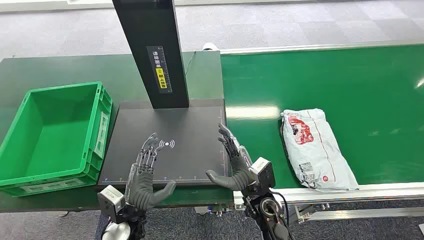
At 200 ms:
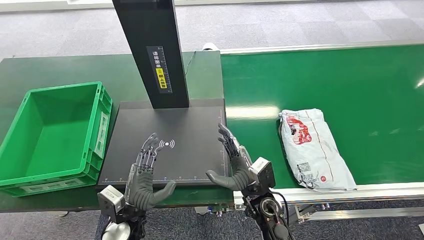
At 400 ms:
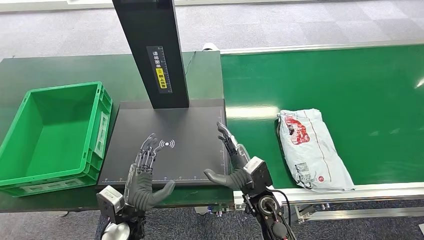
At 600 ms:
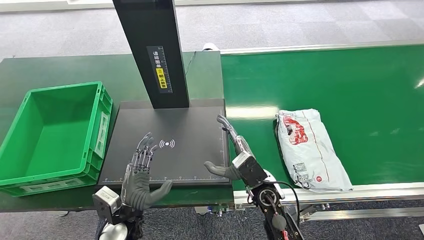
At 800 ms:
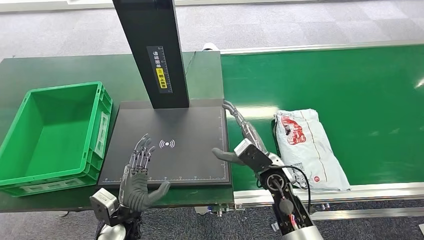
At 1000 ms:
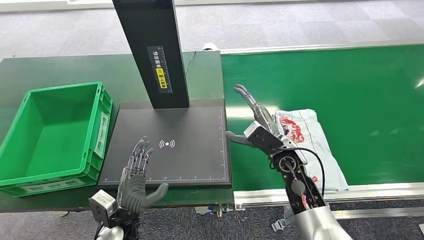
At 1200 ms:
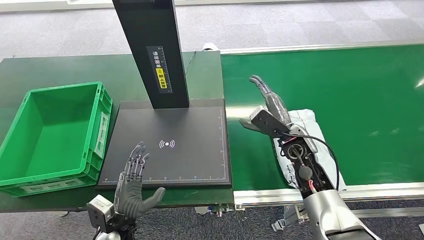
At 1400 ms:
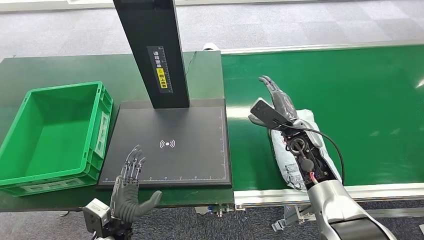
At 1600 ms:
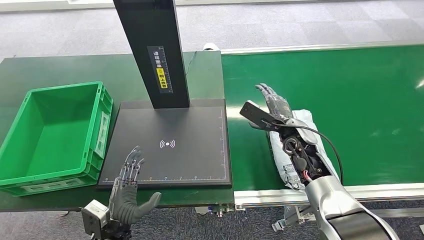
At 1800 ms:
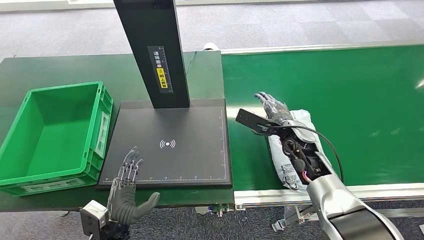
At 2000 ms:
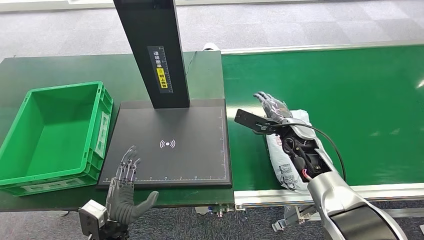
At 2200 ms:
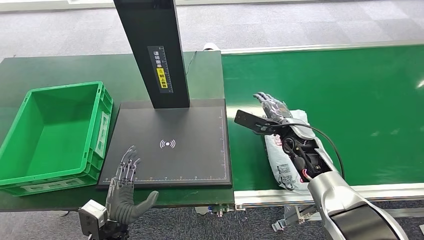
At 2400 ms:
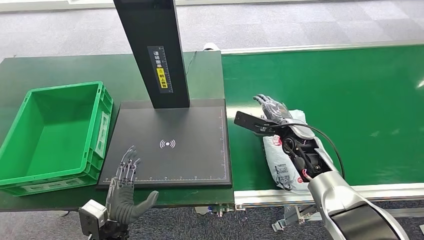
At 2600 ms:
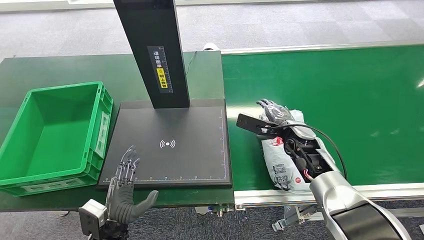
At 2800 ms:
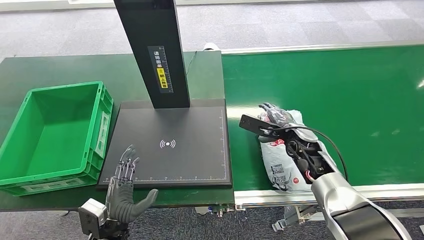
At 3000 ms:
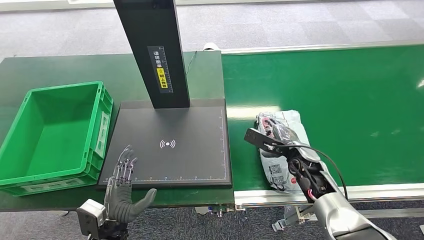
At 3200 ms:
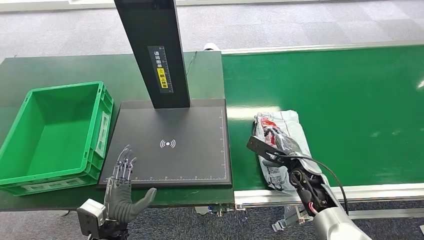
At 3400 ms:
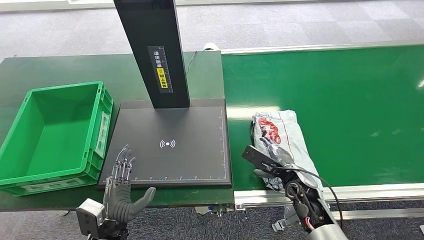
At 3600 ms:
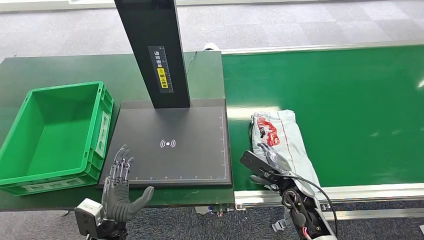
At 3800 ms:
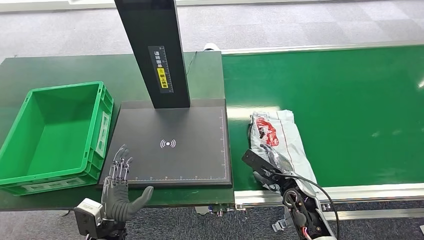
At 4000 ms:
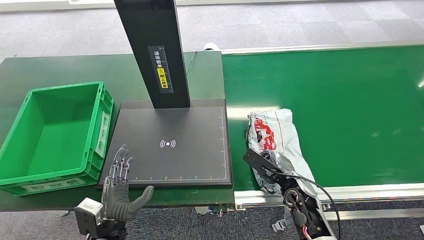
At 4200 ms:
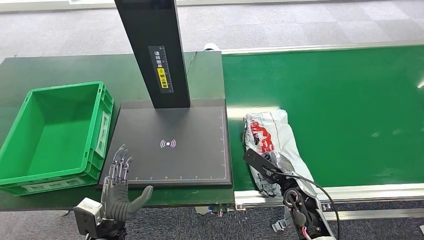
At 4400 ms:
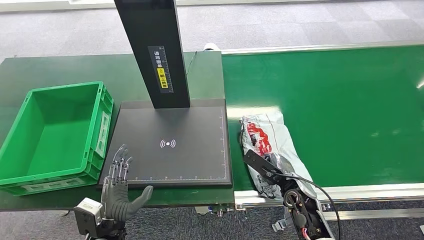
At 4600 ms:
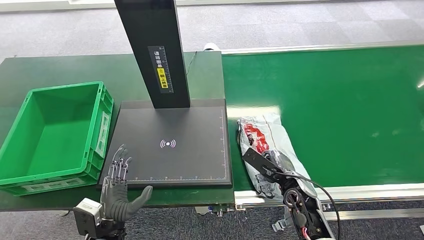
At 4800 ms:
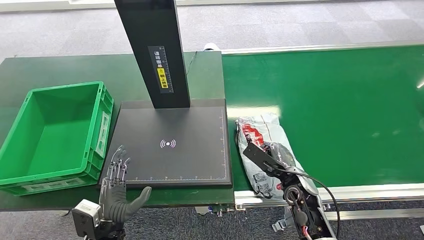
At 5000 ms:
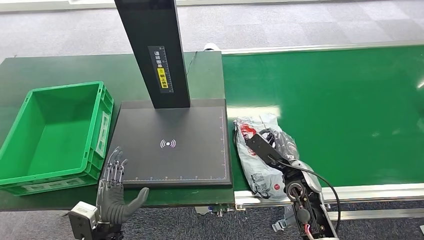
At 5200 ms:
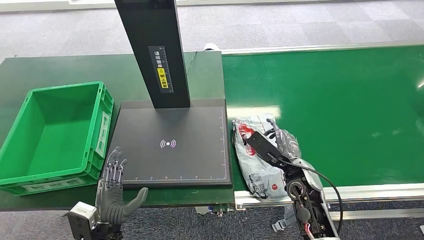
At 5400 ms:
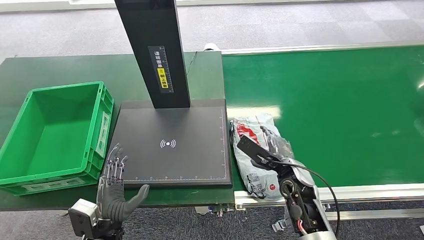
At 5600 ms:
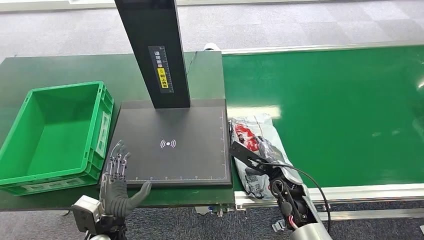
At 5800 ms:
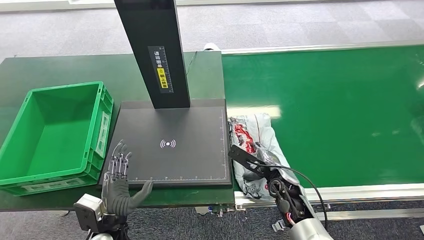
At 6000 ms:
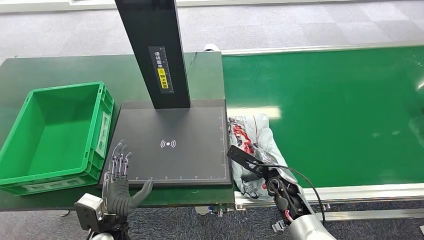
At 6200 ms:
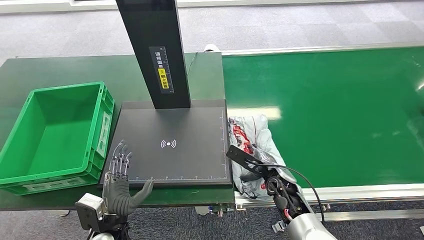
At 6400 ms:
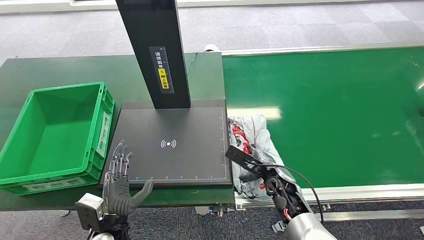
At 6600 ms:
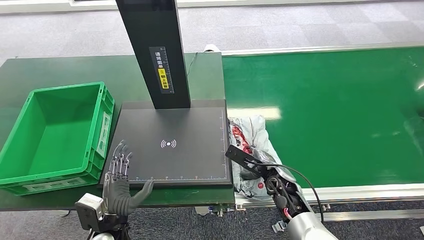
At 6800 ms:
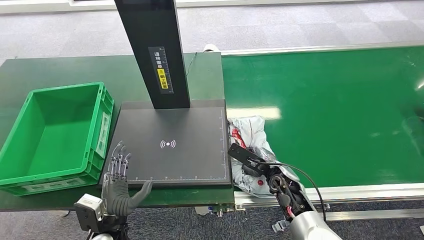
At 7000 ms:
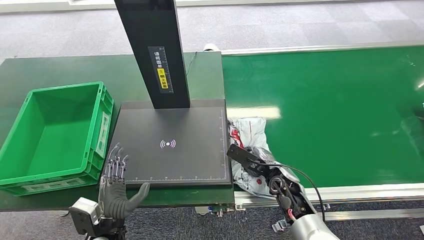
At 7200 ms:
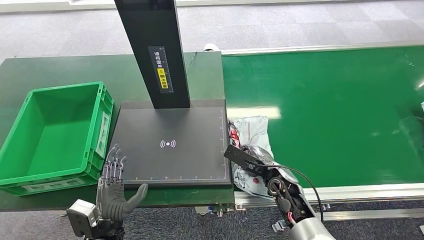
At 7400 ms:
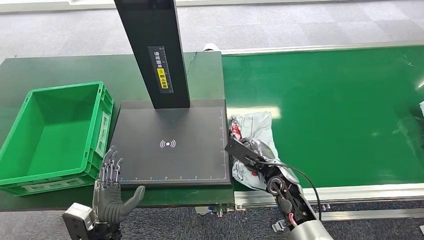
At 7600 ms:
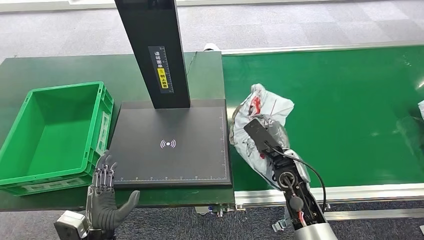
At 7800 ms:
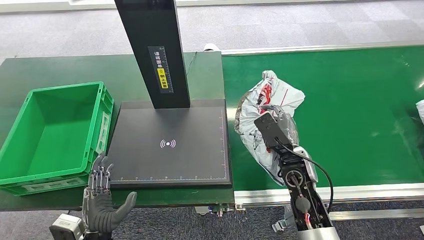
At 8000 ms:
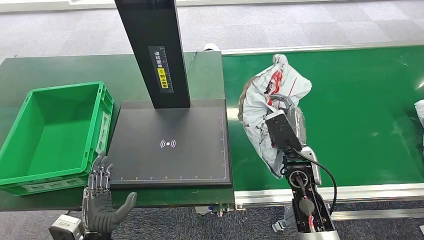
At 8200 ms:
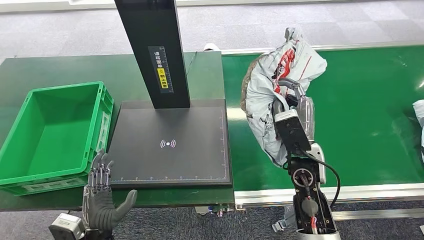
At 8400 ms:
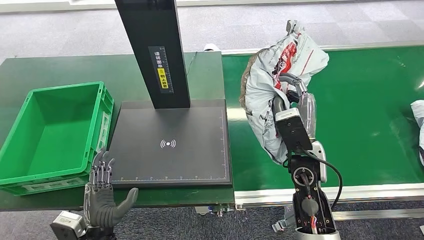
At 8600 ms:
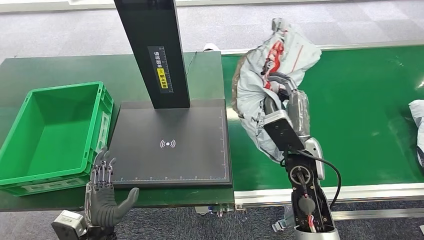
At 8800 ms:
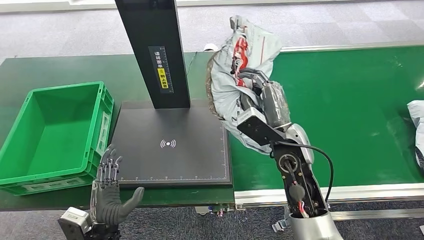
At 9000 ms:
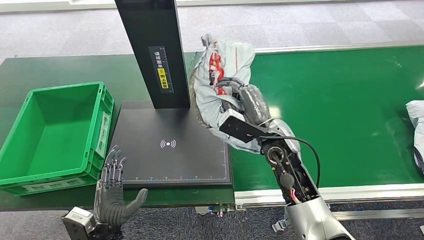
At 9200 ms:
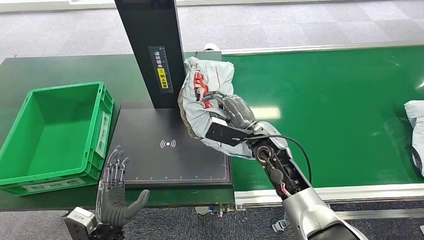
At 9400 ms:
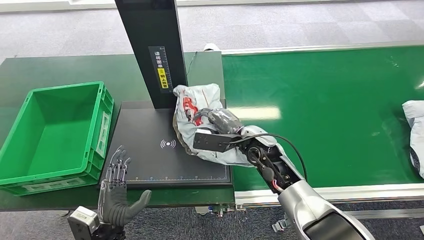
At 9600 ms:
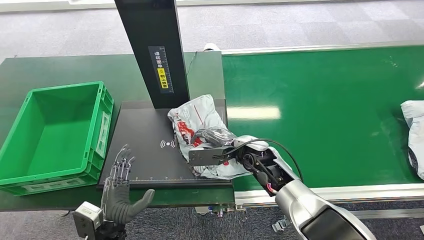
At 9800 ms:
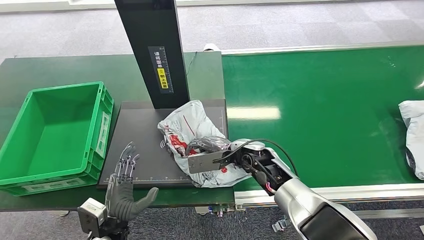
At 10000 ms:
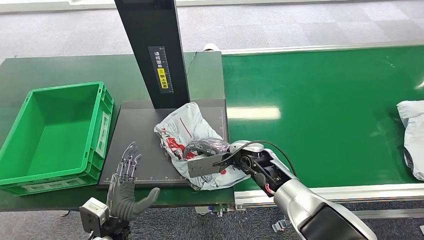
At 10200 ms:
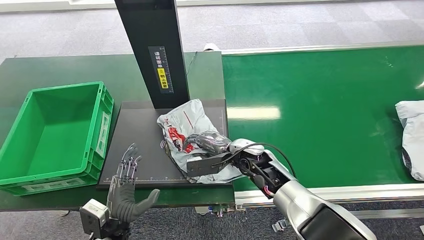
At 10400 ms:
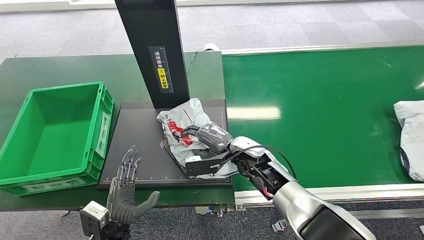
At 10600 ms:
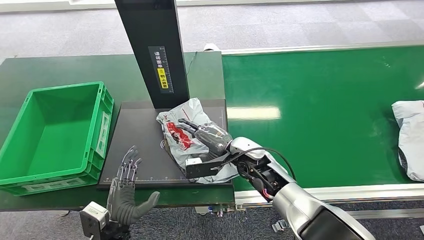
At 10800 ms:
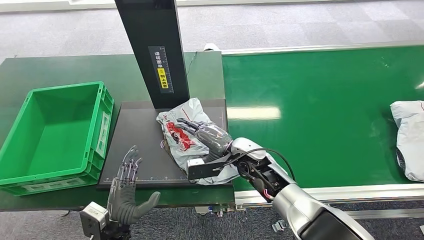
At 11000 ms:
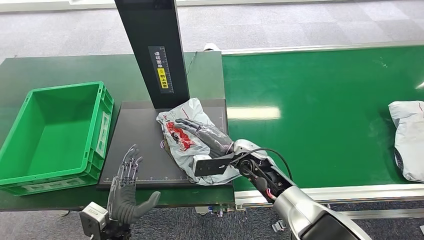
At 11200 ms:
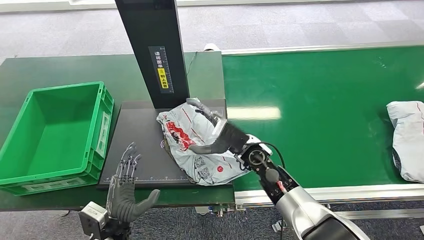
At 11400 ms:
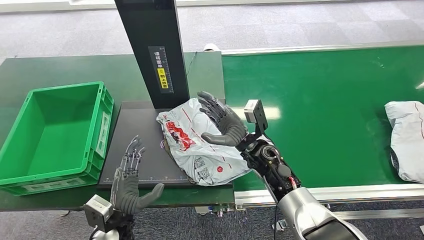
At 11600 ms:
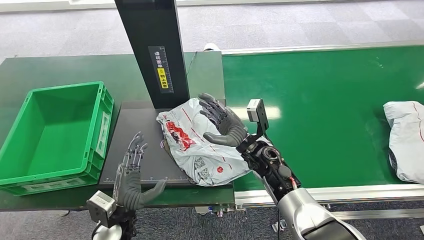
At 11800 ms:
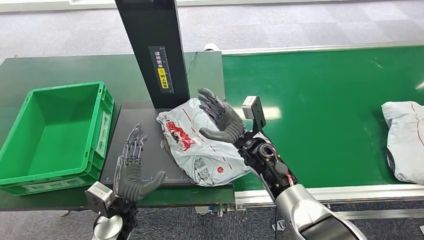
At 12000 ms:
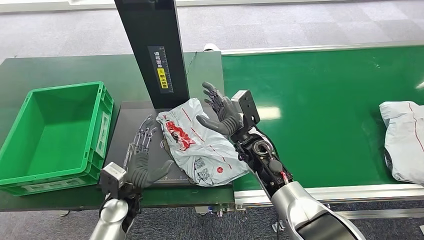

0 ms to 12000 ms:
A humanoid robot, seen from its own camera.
Step, 0 ms to 8200 ms: Pick up the package from the conveyor belt.
Step, 8600 ms to 11800 ms: Place the package onto the inbound machine.
1600 ms to 3000 ms: The right hand is displaced downward by approximately 5 cm.
3000 ms to 4400 ms: The right hand is displaced backward by approximately 10 cm.
4400 ms to 6000 ms: There are only small adjustments of the hands.
6000 ms to 7600 ms: The right hand moves upward, roughly 5 cm.
7600 ms to 9000 ms: The right hand moves upward, some 10 cm.
9000 ms to 10400 ms: The right hand travels downward by some 10 cm.
10400 ms to 12000 ms: The left hand moves forward, about 10 cm.

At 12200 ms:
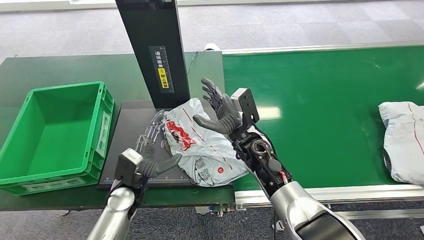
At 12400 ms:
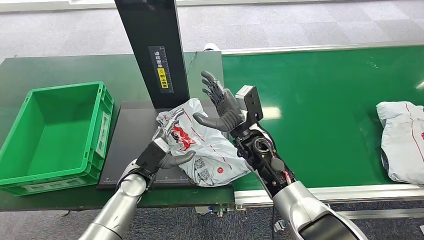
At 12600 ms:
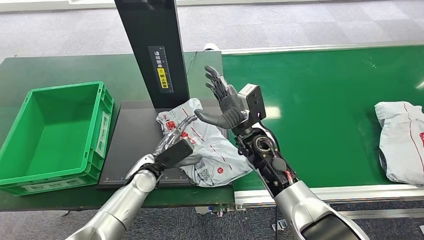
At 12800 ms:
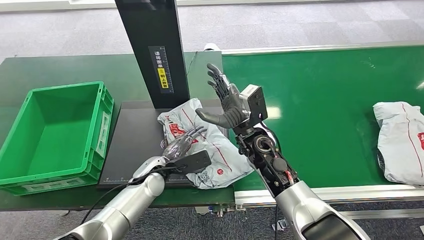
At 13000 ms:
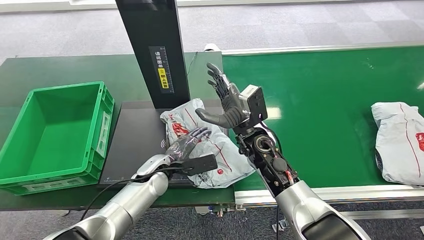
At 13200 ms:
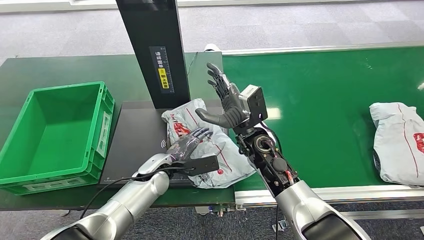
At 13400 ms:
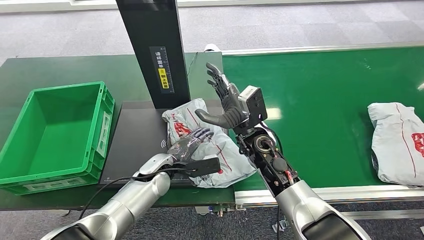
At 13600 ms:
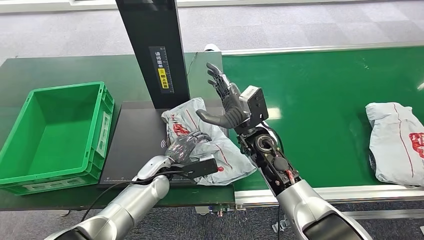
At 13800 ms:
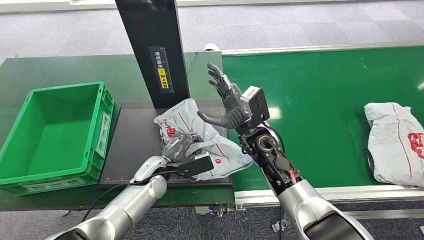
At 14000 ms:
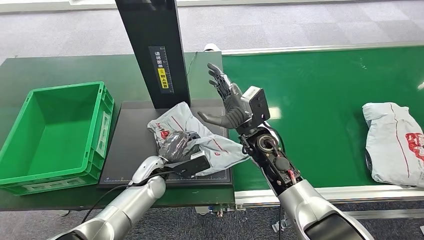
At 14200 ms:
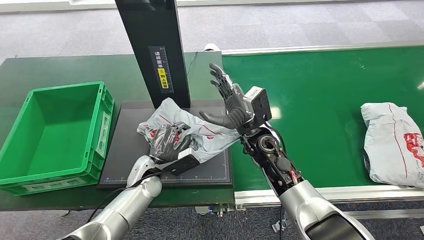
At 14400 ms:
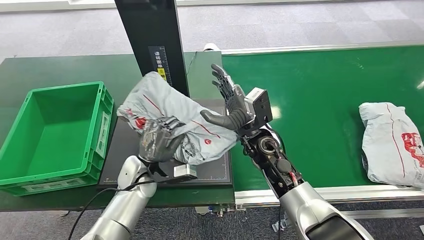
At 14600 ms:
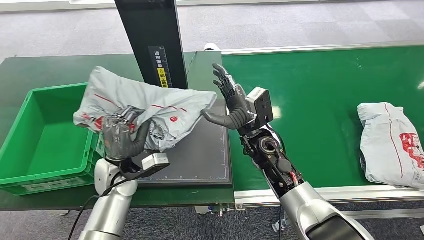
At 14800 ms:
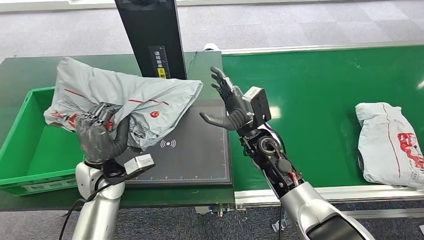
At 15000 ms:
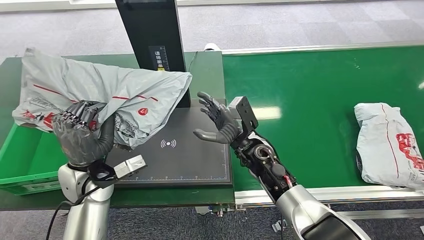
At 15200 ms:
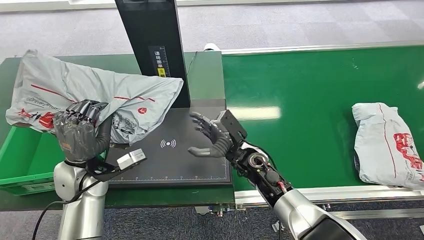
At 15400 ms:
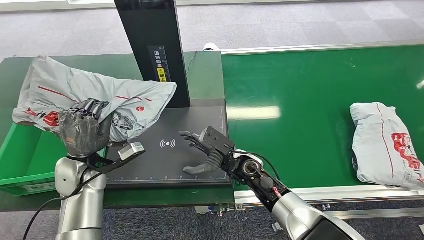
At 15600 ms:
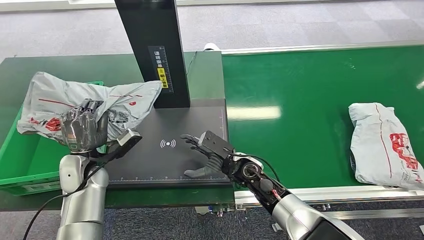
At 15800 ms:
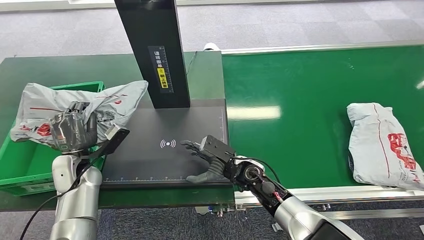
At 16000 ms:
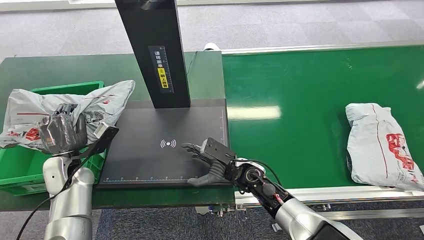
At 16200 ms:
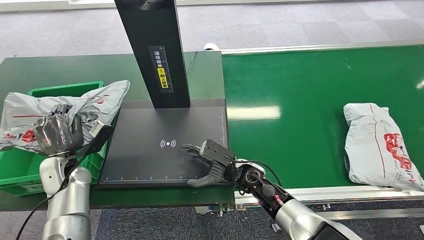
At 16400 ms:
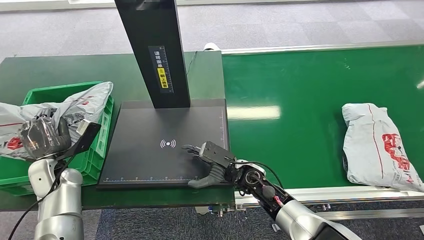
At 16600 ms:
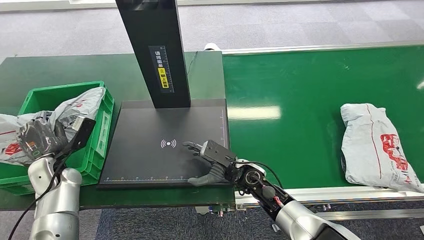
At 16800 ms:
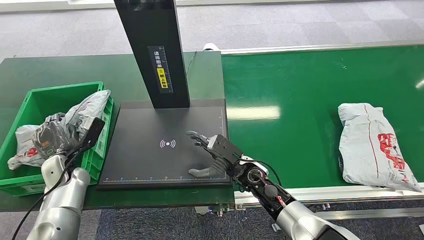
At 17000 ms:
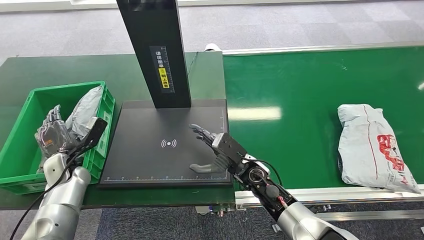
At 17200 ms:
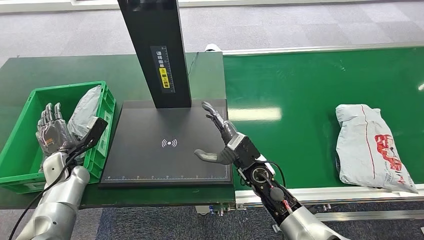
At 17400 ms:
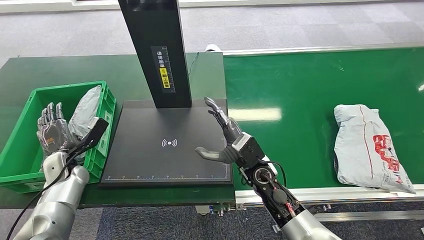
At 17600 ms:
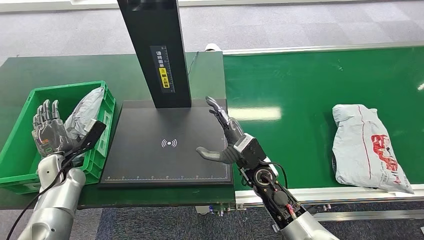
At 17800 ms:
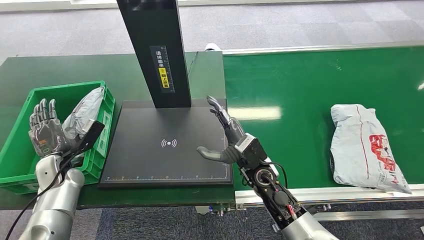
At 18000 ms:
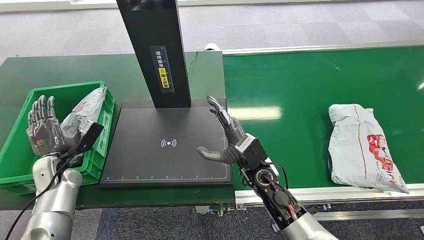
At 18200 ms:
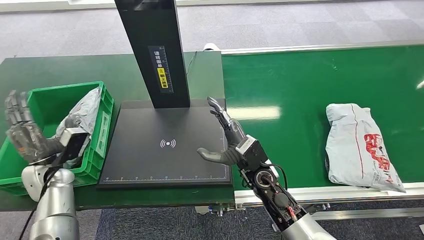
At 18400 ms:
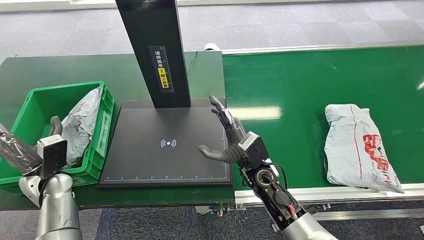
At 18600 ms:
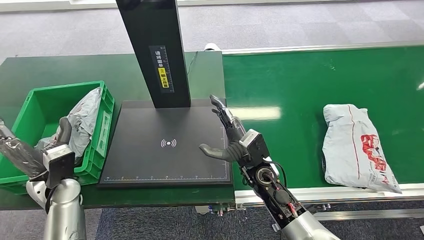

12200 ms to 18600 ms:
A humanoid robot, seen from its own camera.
Step, 12400 ms to 15000 ms: Pick up the package from the inbound machine.
Step, 15600 ms to 18600 ms: Place the package into the parcel locker.
12200 ms to 13800 ms: The left hand travels forward by about 5 cm.
17000 ms to 18600 ms: The left hand shifts roughly 5 cm backward.
